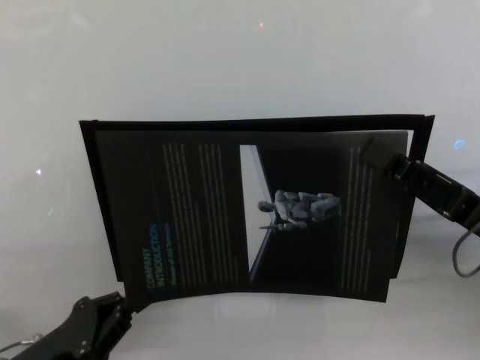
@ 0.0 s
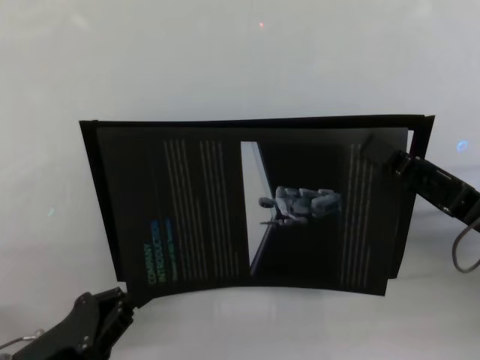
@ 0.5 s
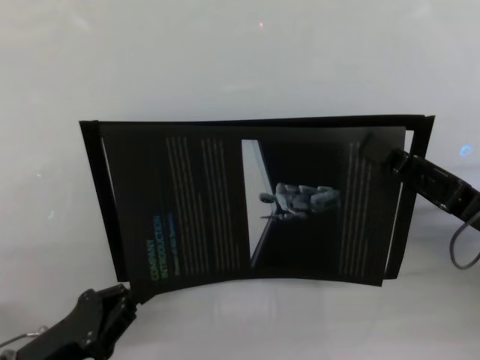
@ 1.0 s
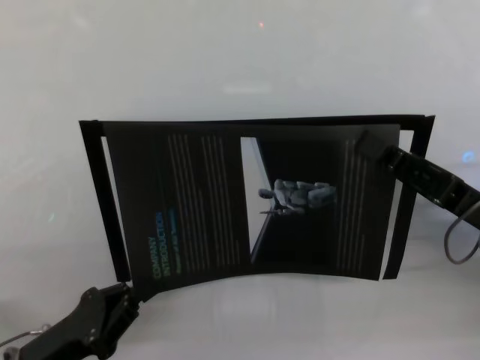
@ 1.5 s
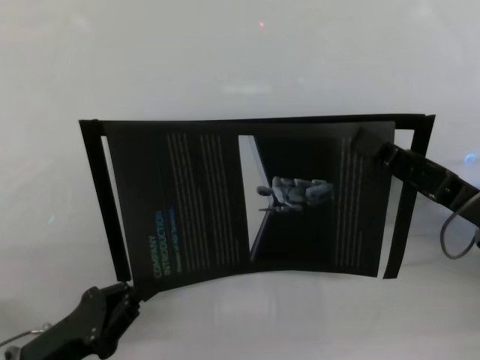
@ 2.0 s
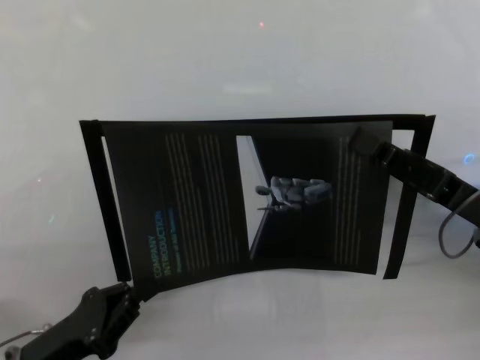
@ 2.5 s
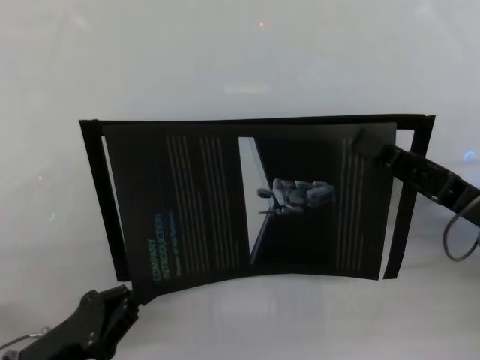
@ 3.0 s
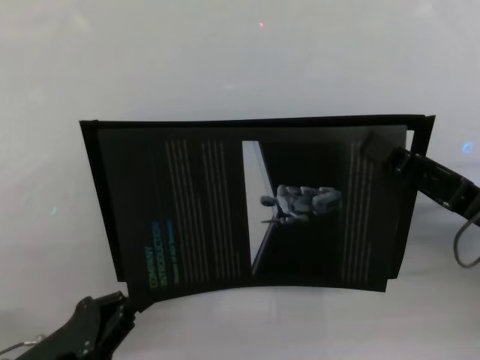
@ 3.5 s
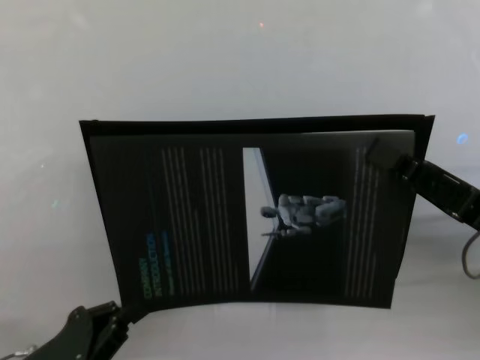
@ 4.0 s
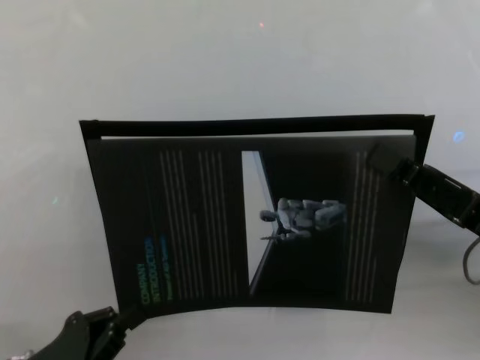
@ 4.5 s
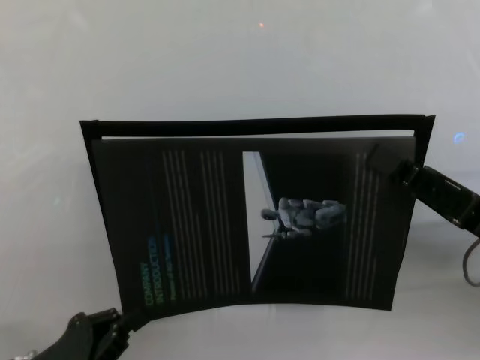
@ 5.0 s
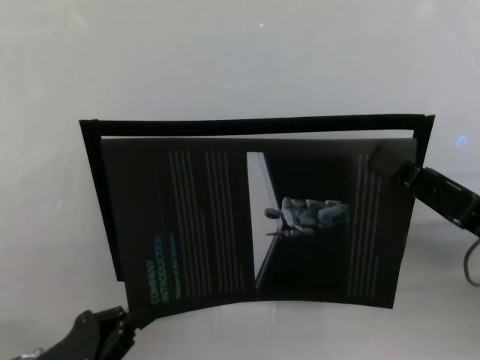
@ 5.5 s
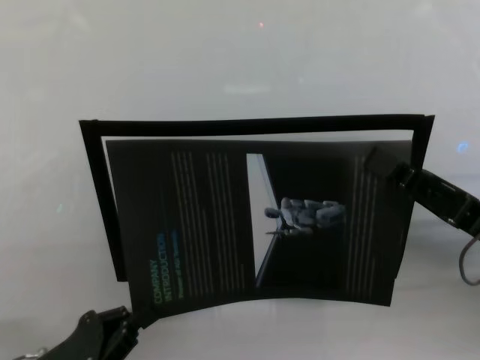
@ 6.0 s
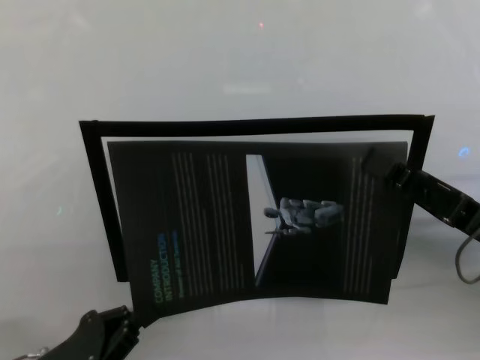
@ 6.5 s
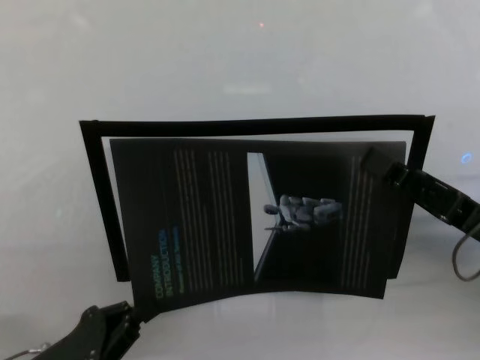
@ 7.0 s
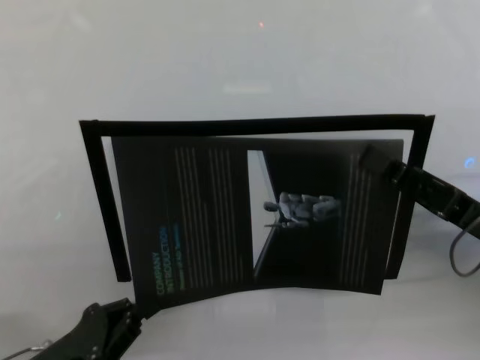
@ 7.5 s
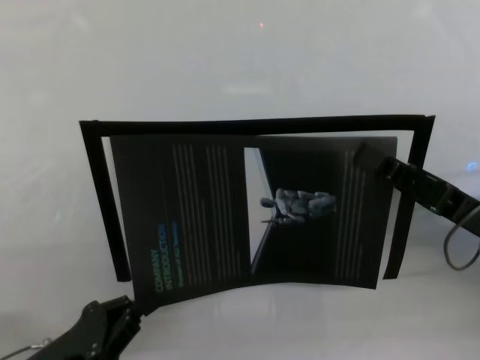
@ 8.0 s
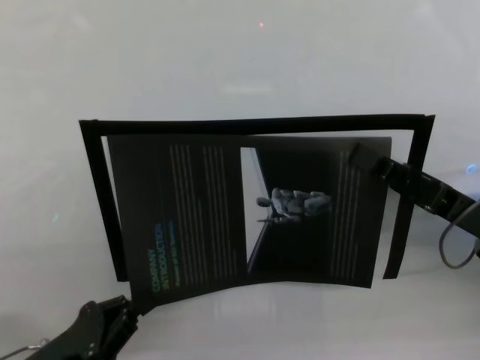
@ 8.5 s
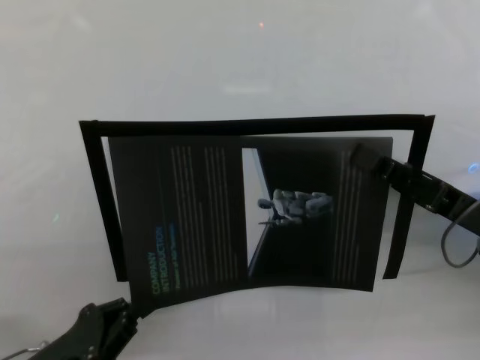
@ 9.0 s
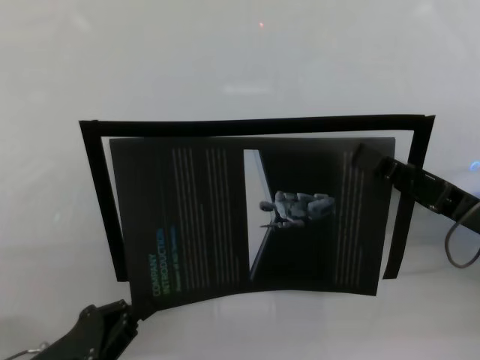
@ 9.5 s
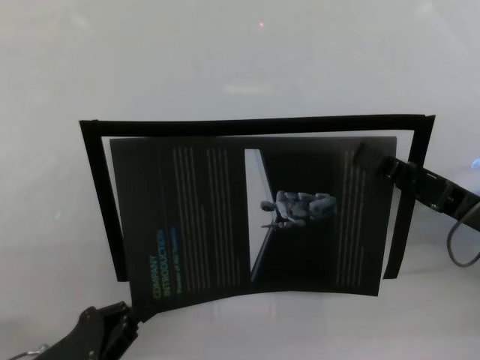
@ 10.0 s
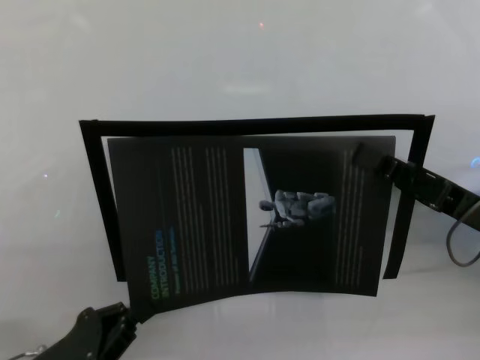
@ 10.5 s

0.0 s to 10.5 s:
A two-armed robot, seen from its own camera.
Task of the whole recording: stick the poster on the table by hand.
Step, 0.0 to 9.5 s: Stick the advertisement in the top-right corner area with both grippers.
